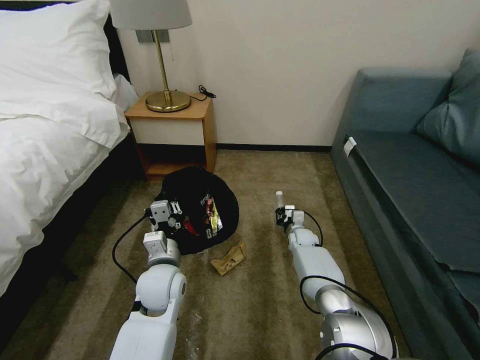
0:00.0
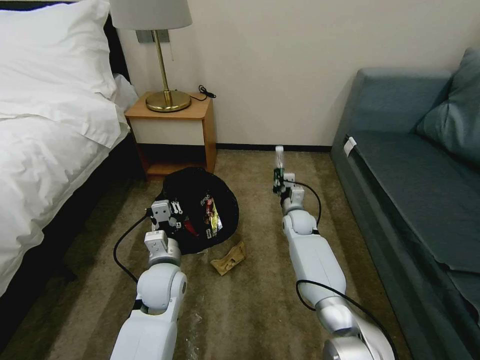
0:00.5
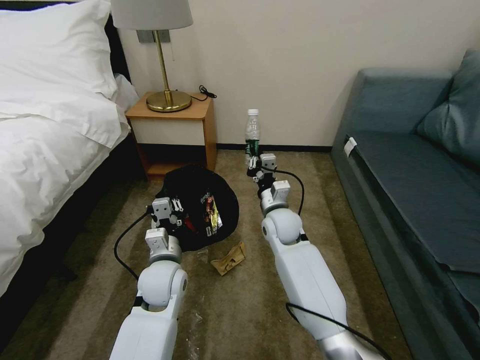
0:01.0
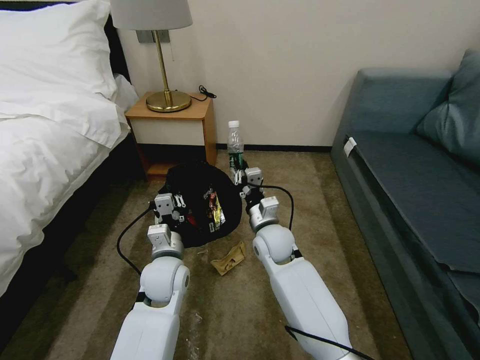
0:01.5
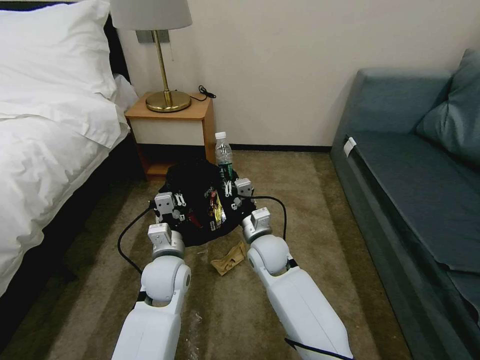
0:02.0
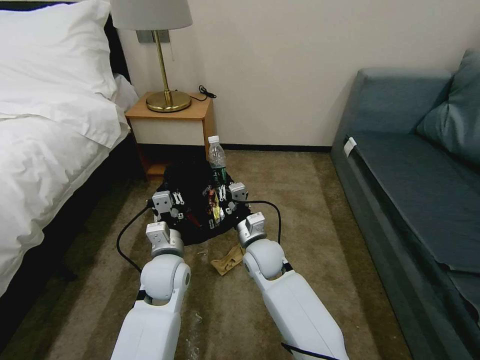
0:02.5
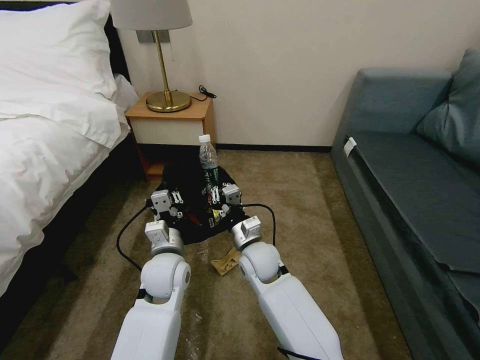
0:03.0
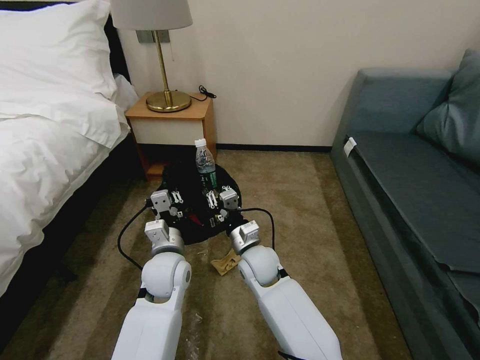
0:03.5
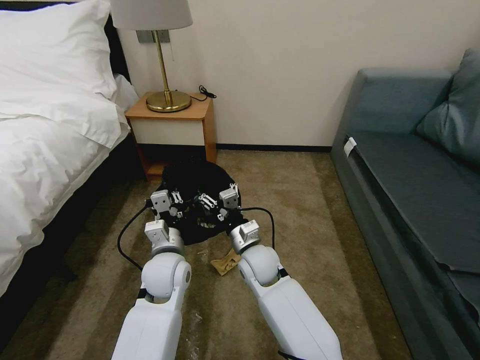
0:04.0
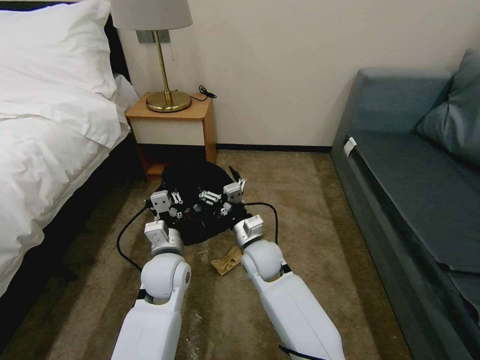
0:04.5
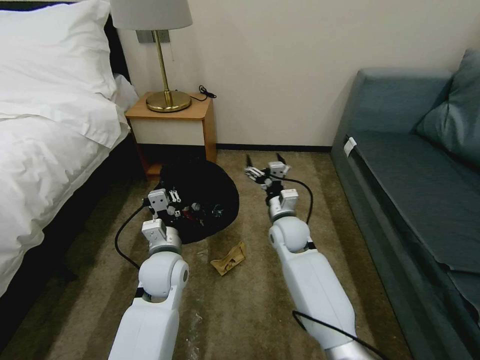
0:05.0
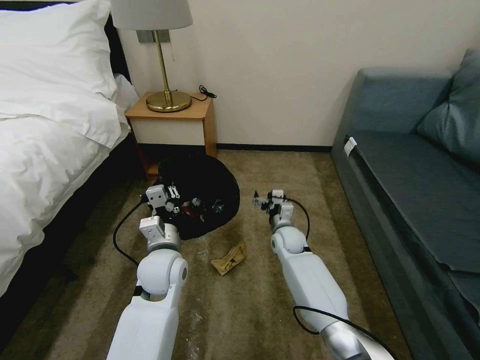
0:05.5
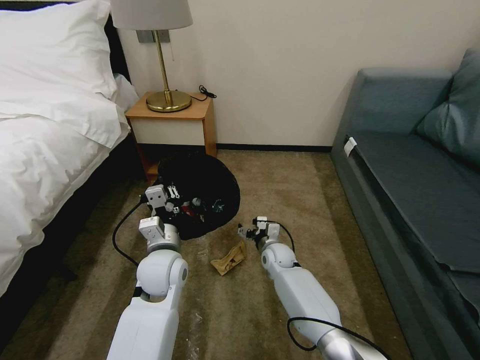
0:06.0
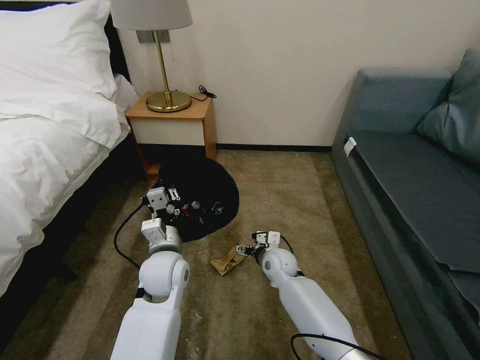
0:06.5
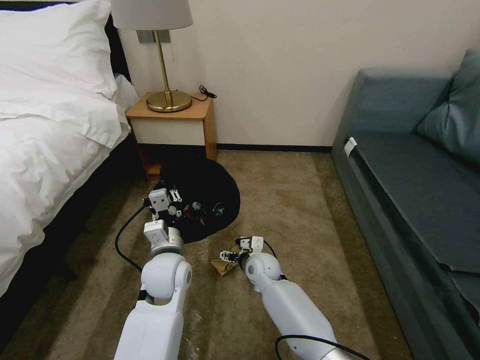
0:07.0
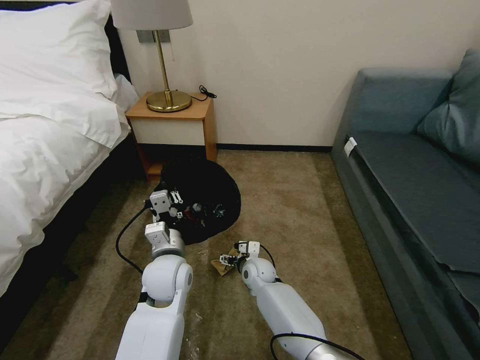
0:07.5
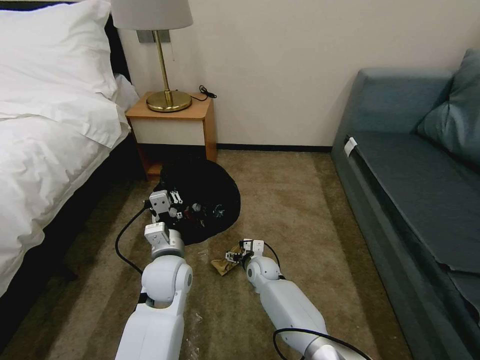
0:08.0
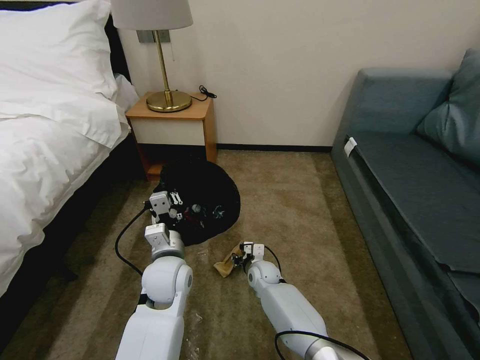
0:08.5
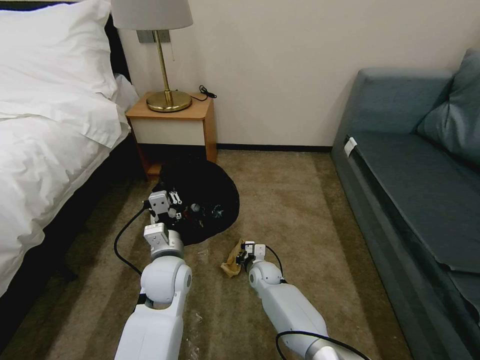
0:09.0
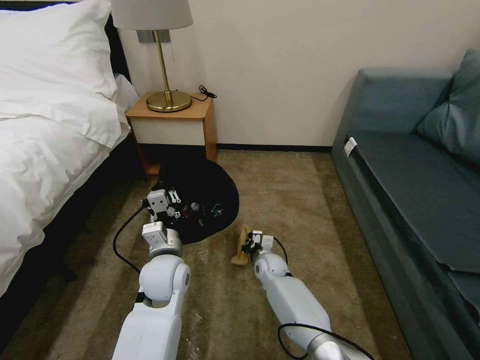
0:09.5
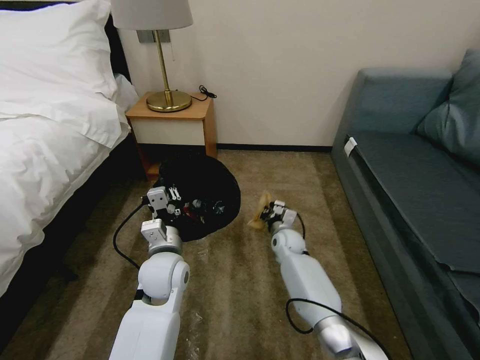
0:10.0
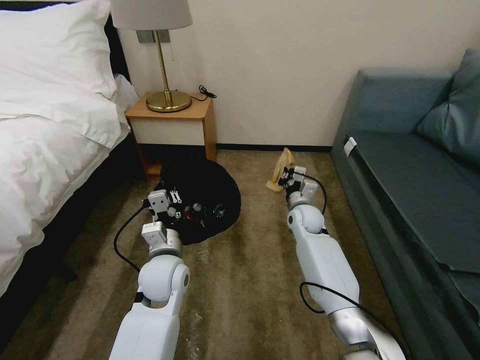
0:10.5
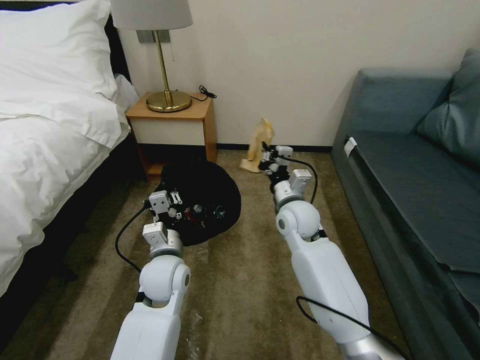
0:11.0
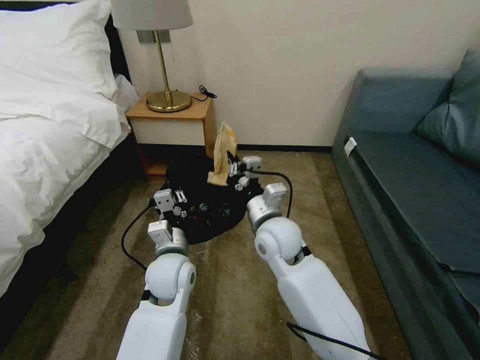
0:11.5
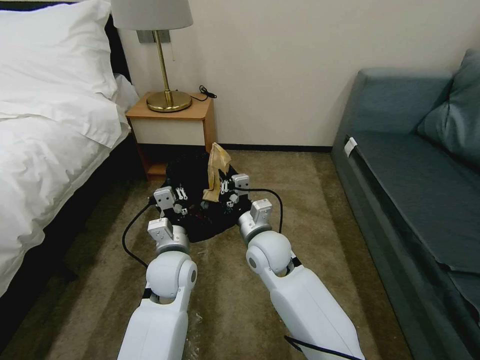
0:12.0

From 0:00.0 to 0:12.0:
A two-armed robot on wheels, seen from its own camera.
Task of the whole recording: Pick up the trash bin, then pick up the garbage on the floor and place it into the trash bin.
From 0:00.0 to 0:02.0: The right gripper is displaced to the left, upward and backward by about 25 cm.
From 0:02.0 to 0:04.0: The right gripper opens its fingers.
From 0:04.0 to 0:06.0: The right gripper goes approximately 15 cm downward, forward and to the right.
From 0:06.0 to 0:08.0: The right gripper shifts by approximately 5 cm.
From 0:08.0 to 0:10.0: The right gripper is displaced to the right, forward and upward by some 10 cm, and closes.
From 0:10.0 to 0:12.0: The right gripper is displaced upward, backward and to the left by about 20 cm.

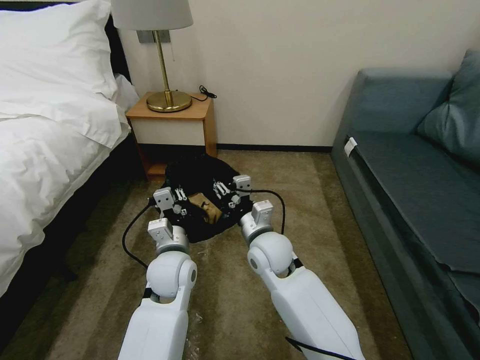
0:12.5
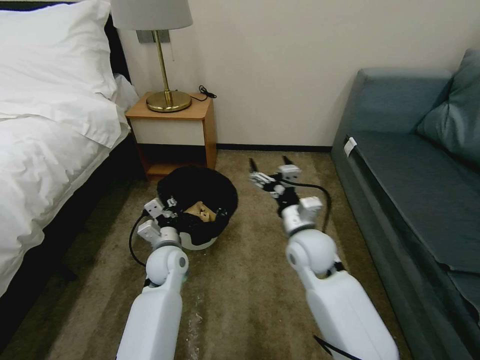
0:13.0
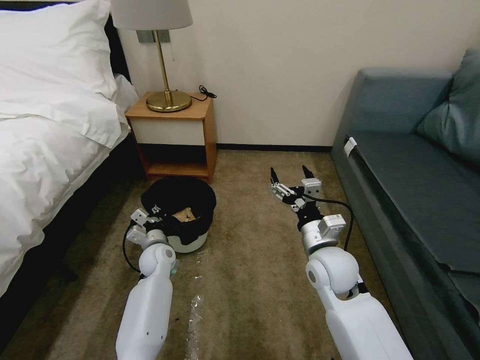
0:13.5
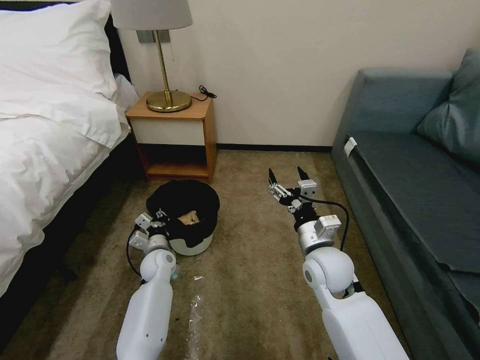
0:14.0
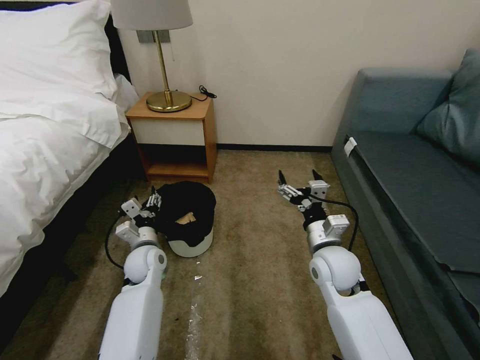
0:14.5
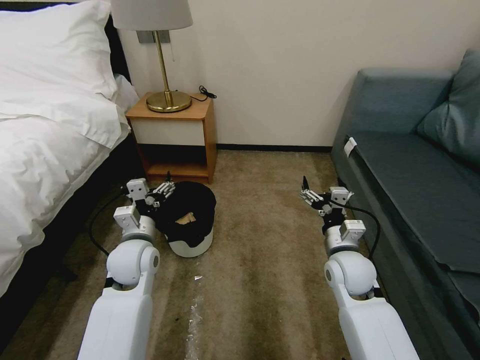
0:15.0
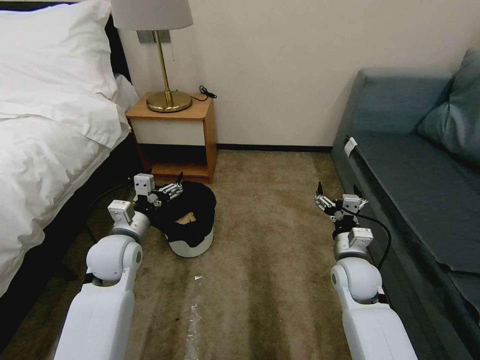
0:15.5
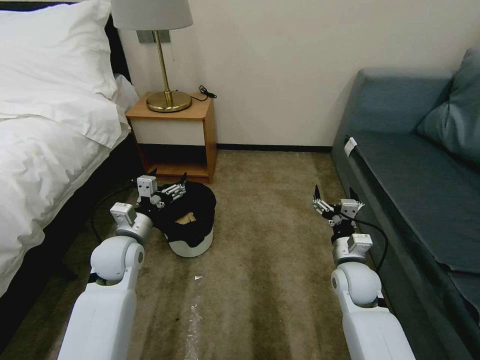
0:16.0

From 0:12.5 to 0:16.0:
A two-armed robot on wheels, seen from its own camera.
Task of the whole recording: Pick up the trash bin, then pick up the garbage on the floor and place it into the trash bin.
From 0:12.5 to 0:14.5: The left gripper shifts some 15 cm to the left, downward and forward, and opens. Meanwhile the right gripper goes about 15 cm to the right, and opens up.
From 0:14.5 to 0:16.0: The left gripper is displaced upward by roughly 10 cm. Meanwhile the right gripper shifts some 10 cm to the right and downward.

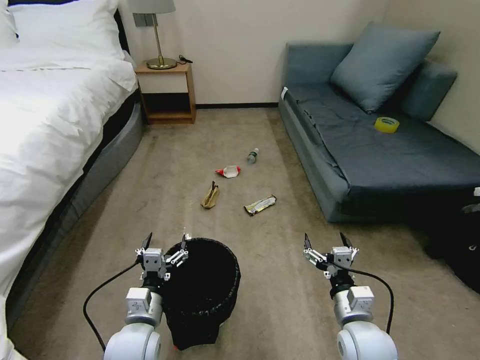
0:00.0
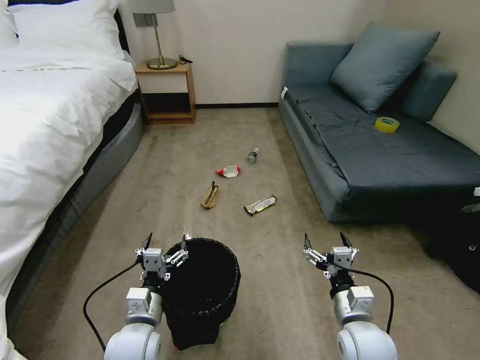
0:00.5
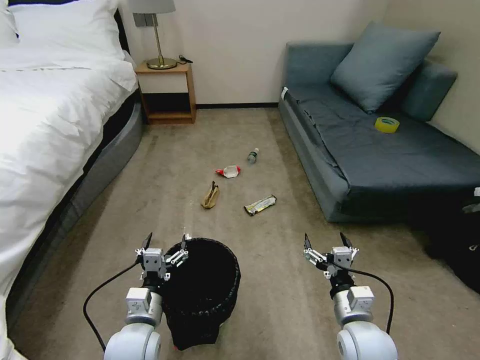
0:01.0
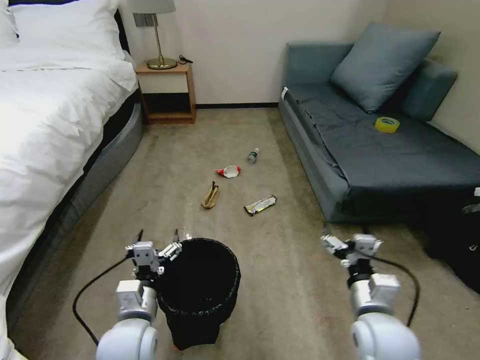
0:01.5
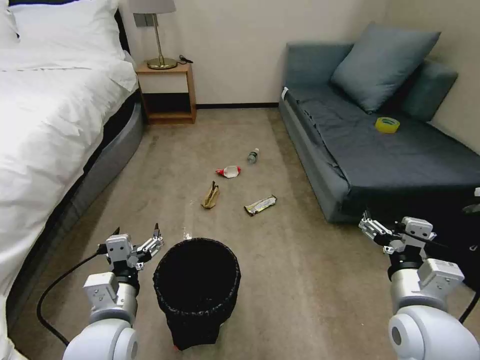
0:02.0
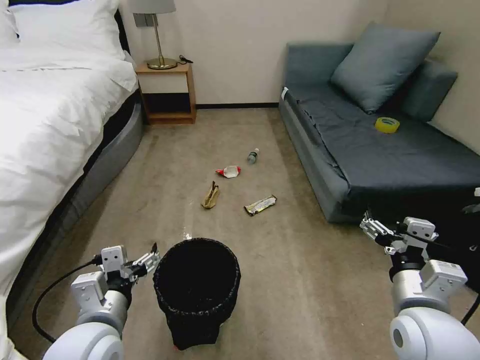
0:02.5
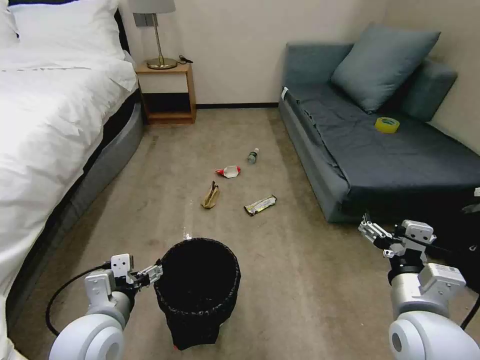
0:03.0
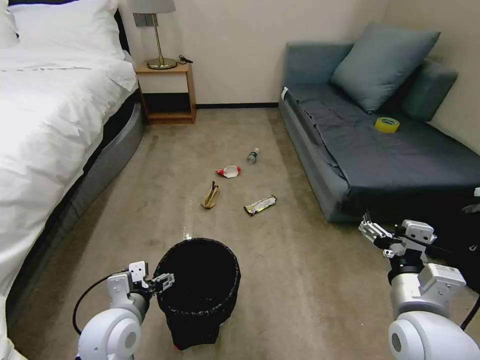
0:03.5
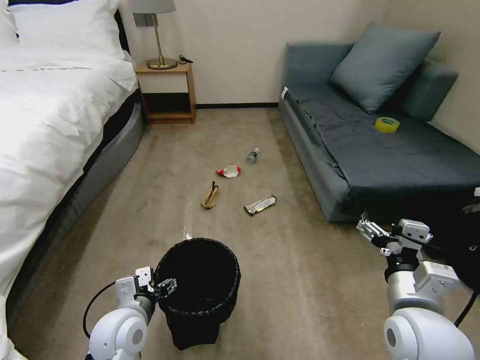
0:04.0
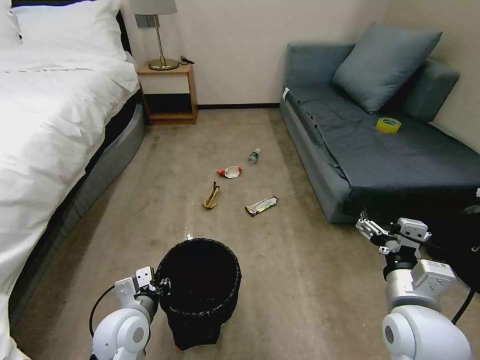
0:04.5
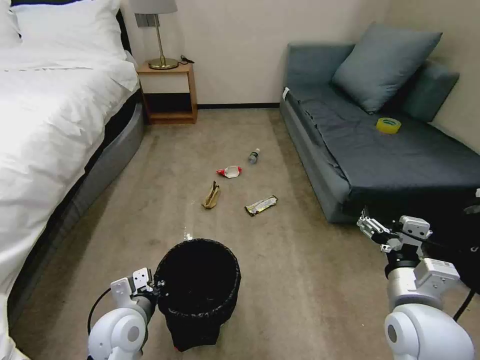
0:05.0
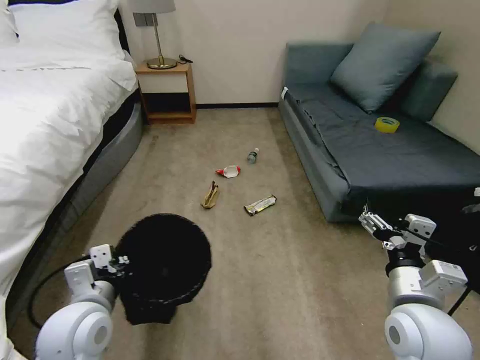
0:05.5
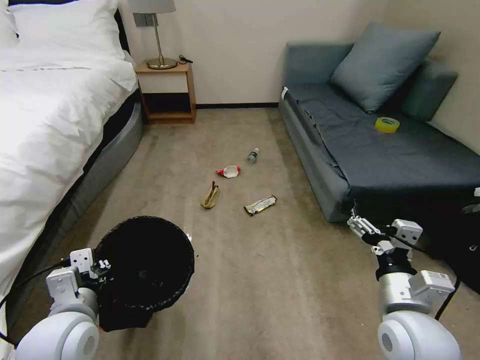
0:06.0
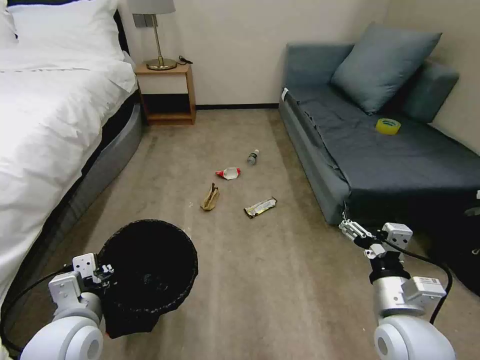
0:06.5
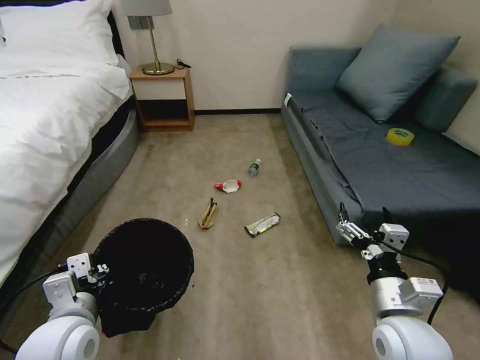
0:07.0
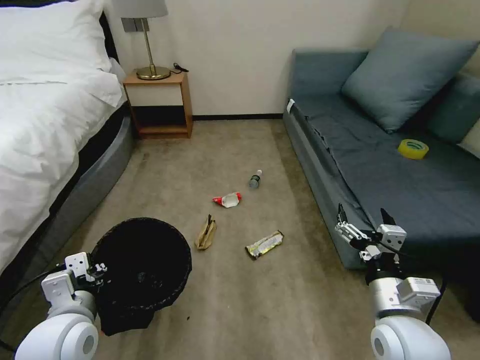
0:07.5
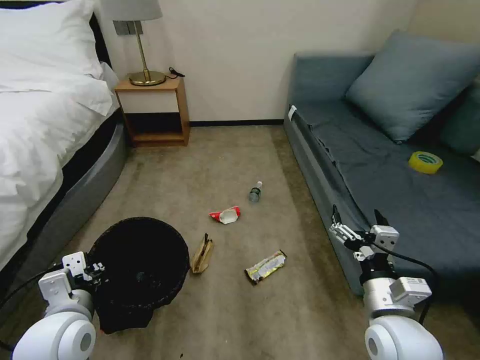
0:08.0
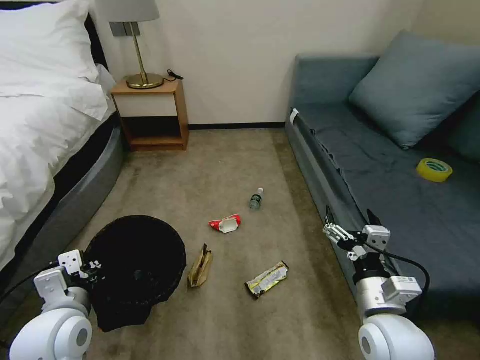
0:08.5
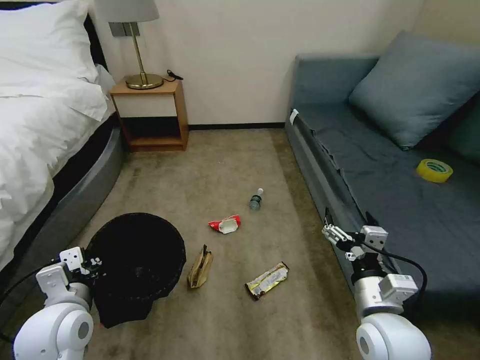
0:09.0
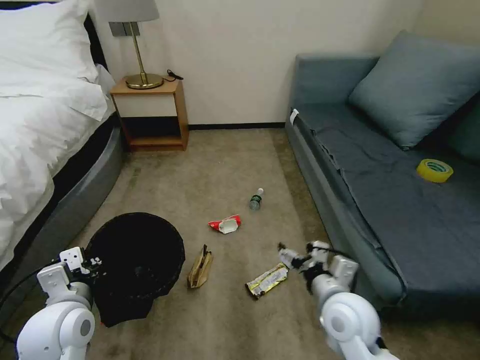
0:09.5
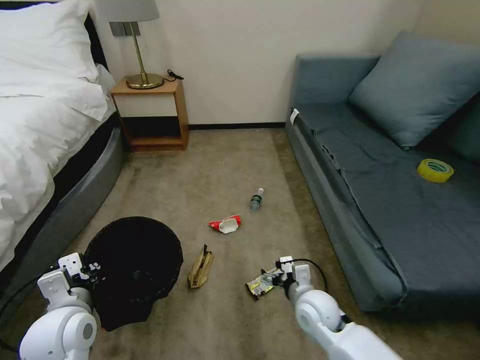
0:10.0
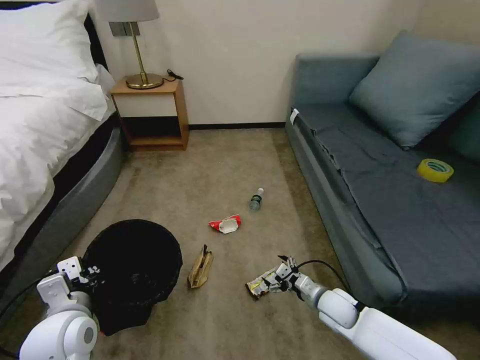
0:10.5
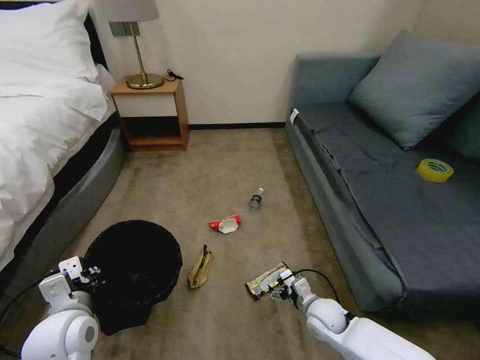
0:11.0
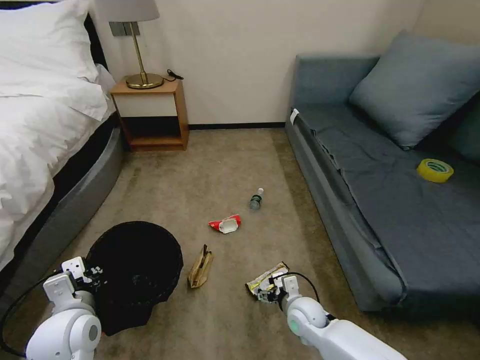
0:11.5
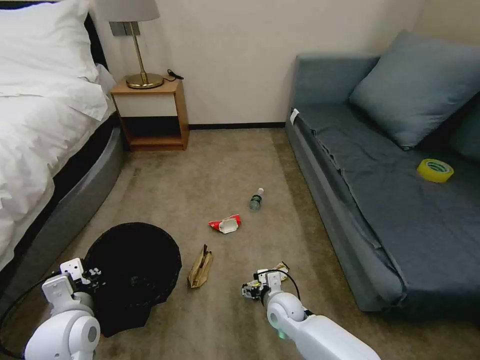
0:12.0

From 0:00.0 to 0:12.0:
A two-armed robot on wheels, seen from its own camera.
Task of the whole recording: Pick up the trash bin, then pick up the garbage on the floor and place it into the trash bin.
From 0:02.0 to 0:04.0: The left gripper shifts approximately 5 cm downward.
From 0:04.0 to 0:06.0: The left gripper travels upward by some 10 cm, and closes up.
From 0:08.0 to 0:10.0: The right gripper is displaced downward, forward and to the left by about 20 cm.
From 0:10.0 to 0:12.0: The right gripper shifts about 10 cm downward and to the left.
